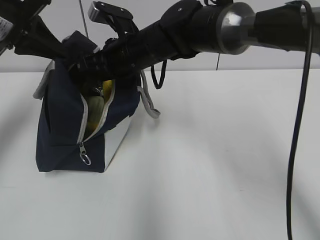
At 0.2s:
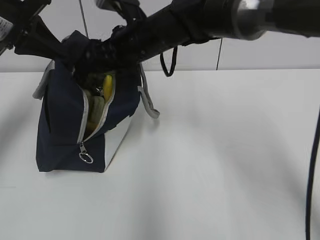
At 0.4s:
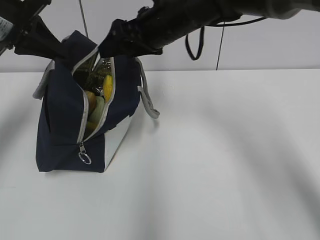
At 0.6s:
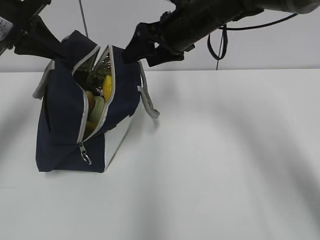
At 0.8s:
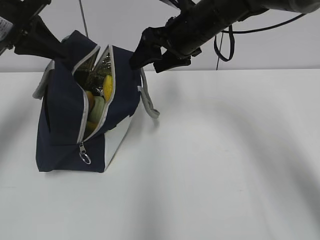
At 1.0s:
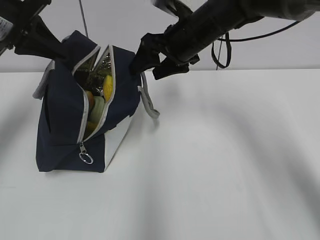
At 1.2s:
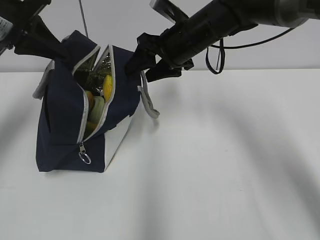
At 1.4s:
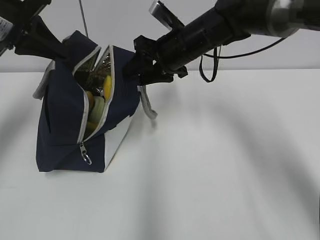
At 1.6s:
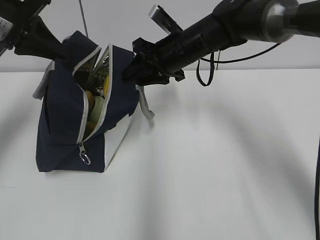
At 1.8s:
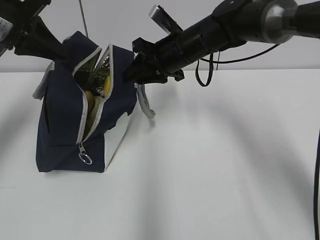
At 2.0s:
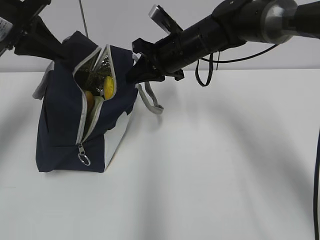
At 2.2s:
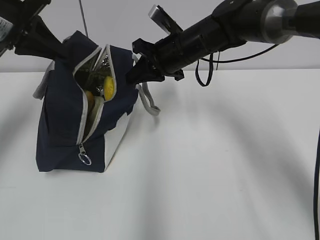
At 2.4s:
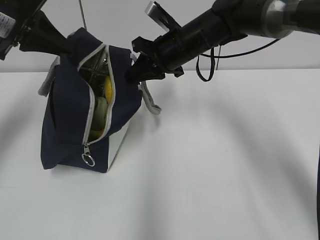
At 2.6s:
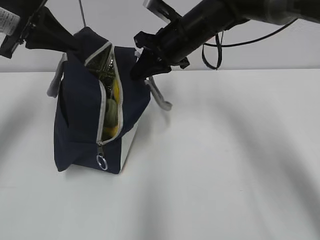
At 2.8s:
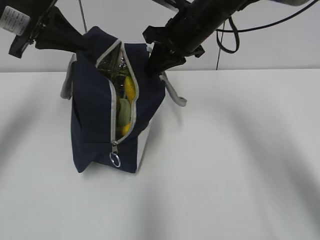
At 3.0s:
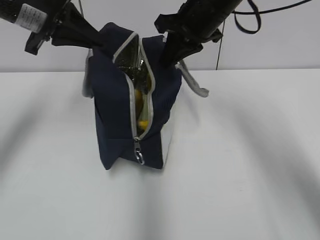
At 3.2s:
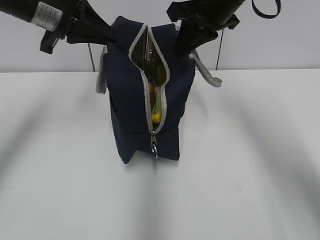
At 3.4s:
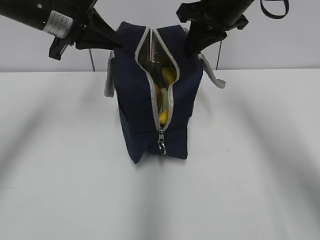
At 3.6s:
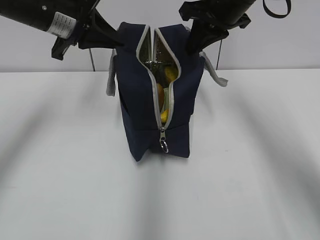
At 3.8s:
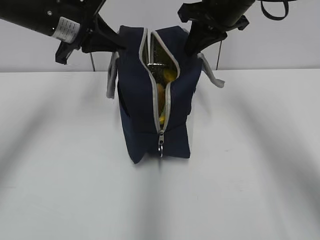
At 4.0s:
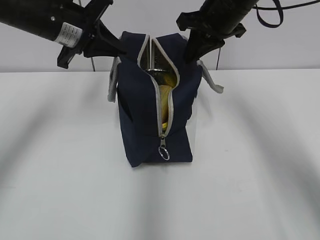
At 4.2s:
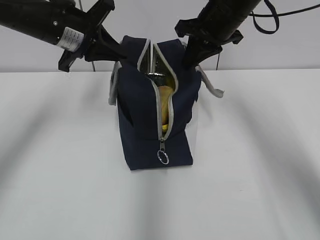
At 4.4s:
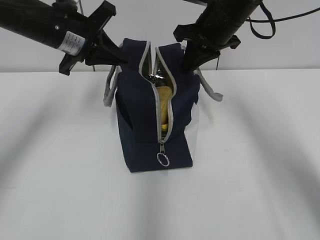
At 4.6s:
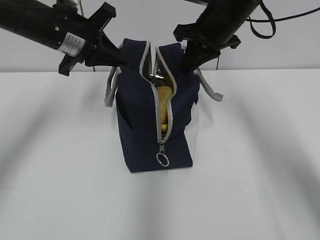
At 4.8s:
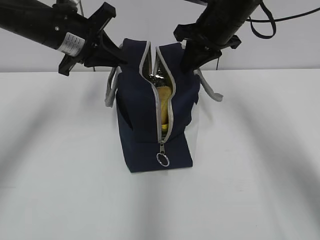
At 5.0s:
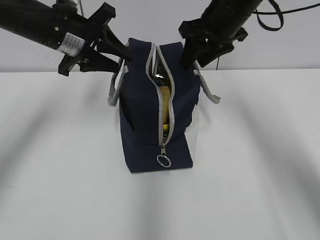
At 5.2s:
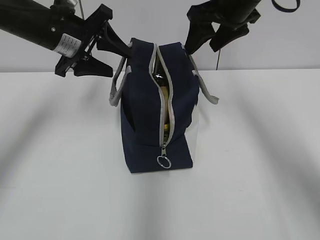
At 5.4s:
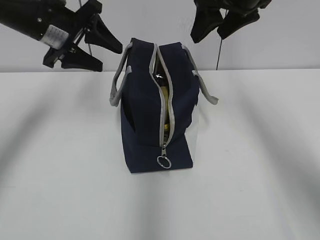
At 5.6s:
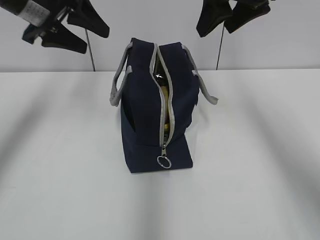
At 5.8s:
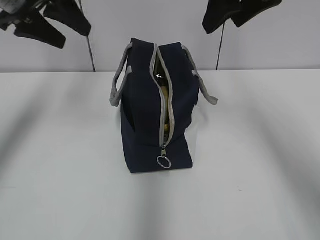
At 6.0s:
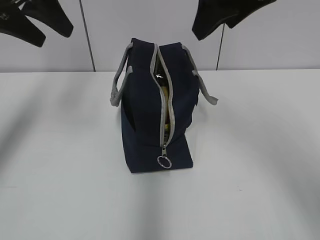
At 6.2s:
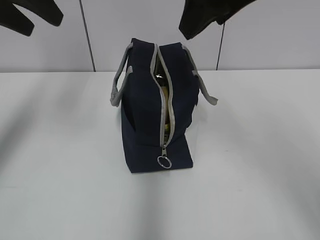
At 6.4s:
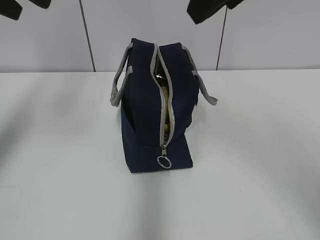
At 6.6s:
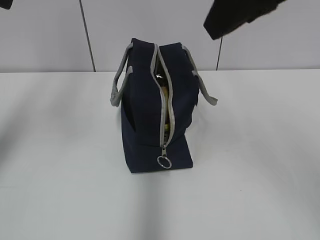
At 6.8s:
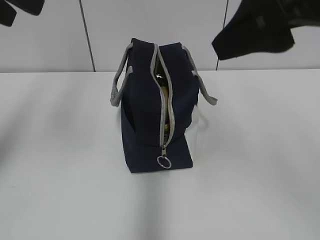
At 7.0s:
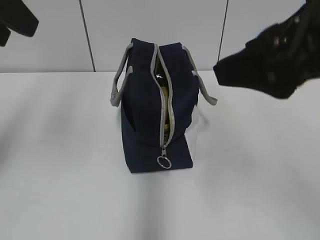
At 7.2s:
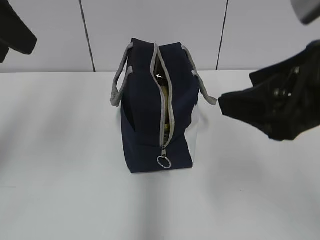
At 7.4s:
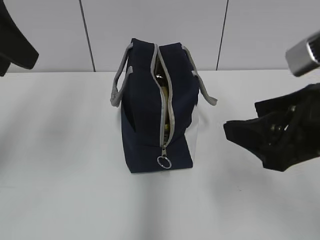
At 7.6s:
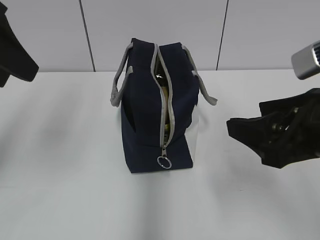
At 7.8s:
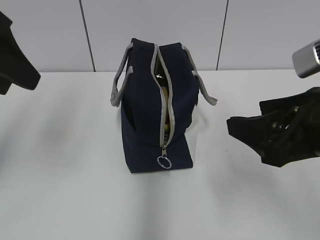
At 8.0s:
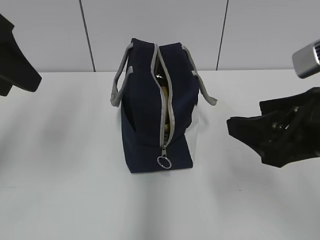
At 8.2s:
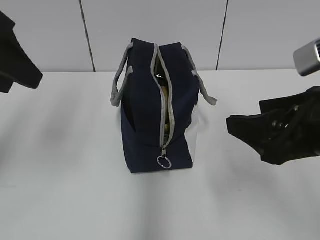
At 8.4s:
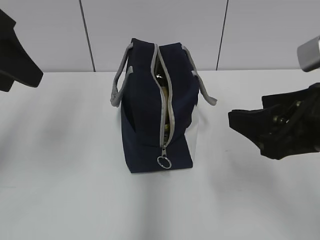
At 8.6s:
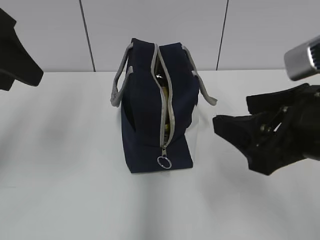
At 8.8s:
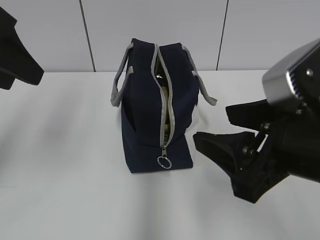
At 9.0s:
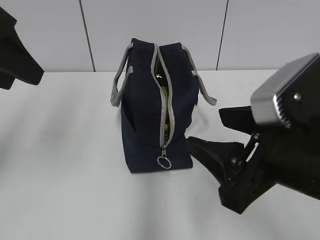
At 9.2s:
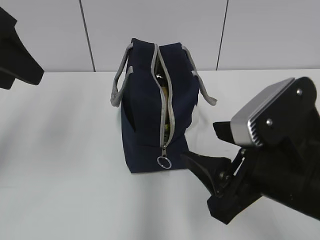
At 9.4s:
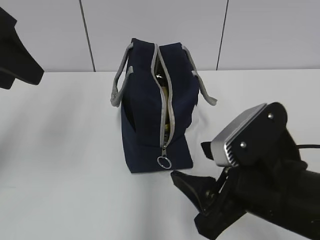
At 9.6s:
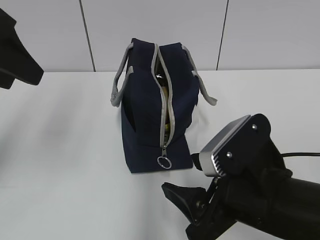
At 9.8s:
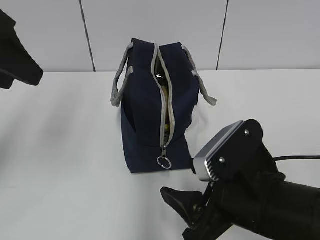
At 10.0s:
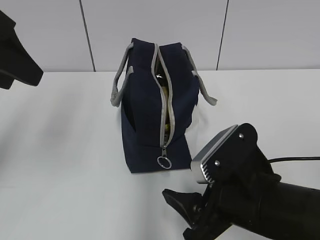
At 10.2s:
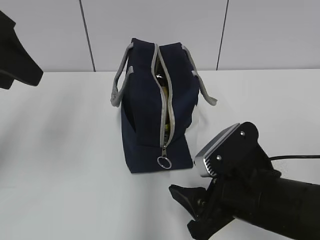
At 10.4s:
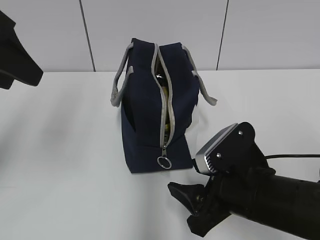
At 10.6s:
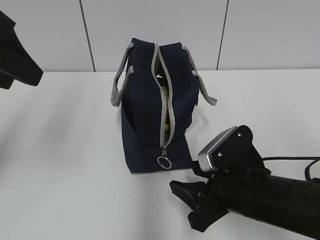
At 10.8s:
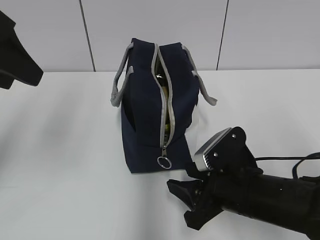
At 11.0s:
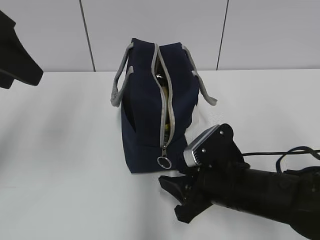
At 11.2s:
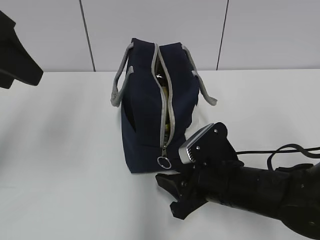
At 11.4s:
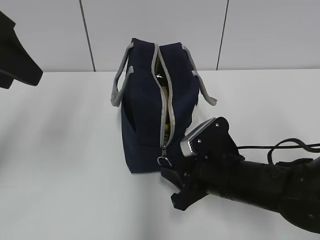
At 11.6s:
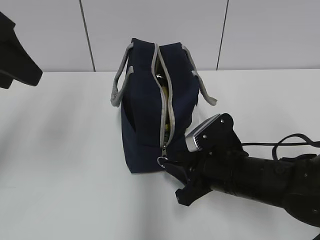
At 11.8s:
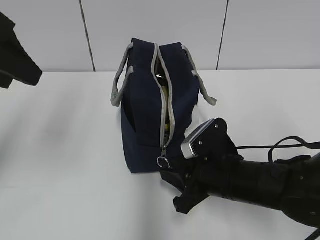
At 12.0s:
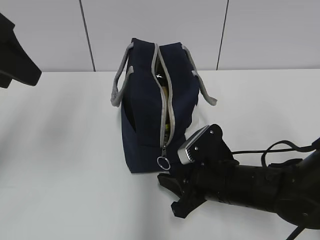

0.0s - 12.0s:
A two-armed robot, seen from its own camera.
0.0s - 1.6s: The right gripper travels to the right by about 10 cm, and closes.
1.6s - 3.0s: The right gripper moves upward, approximately 10 cm, and closes; the left gripper shifts roughly 5 cm to the right.
3.0s - 4.4s: The left gripper shifts roughly 5 cm downward.
4.4s - 6.0s: The right gripper shifts some 15 cm upward and backward, and opens; the left gripper shifts approximately 15 cm upward, to the left and backward, and opens up.
6.0s - 7.6s: The right gripper heads backward and downward, covering roughly 20 cm; the left gripper is displaced backward by roughly 10 cm.
7.6s - 9.0s: The right gripper shifts by roughly 5 cm.
9.0s - 10.4s: The right gripper travels downward by approximately 10 cm.
10.4s - 12.0s: The right gripper goes about 10 cm forward and downward, and closes its fingers.

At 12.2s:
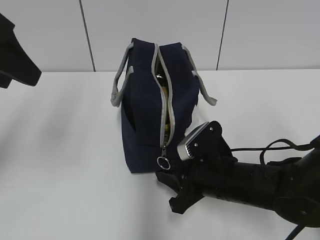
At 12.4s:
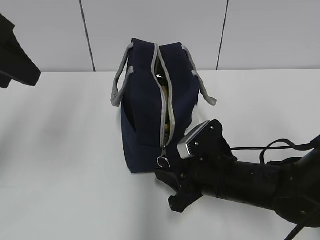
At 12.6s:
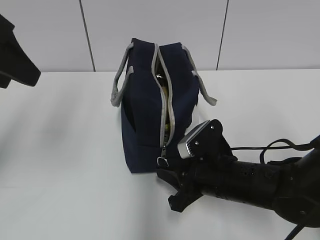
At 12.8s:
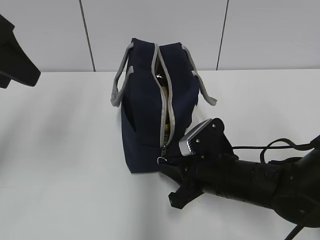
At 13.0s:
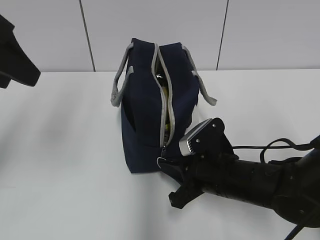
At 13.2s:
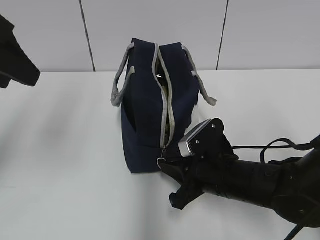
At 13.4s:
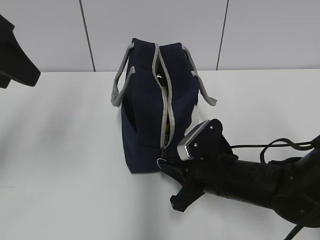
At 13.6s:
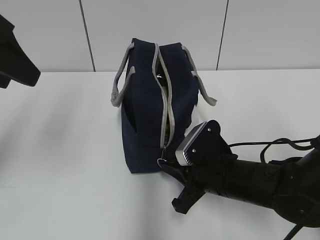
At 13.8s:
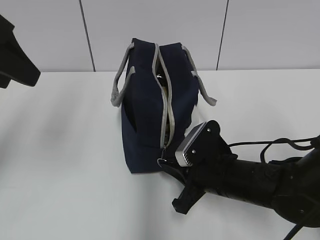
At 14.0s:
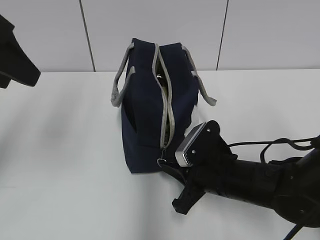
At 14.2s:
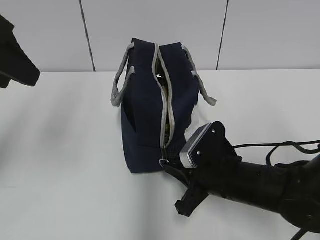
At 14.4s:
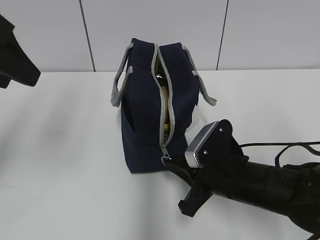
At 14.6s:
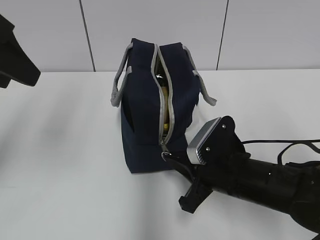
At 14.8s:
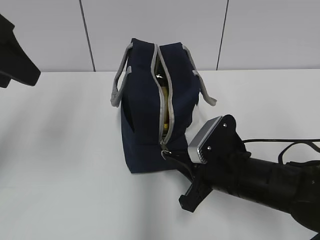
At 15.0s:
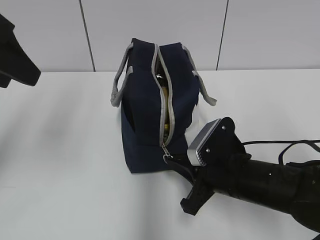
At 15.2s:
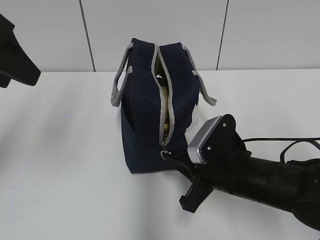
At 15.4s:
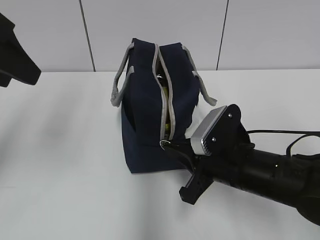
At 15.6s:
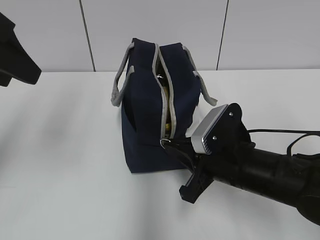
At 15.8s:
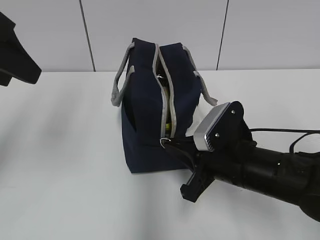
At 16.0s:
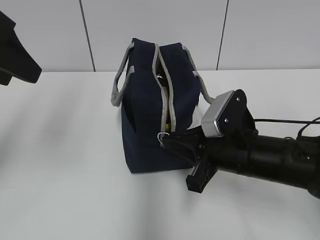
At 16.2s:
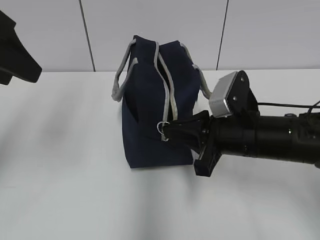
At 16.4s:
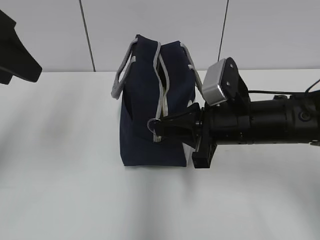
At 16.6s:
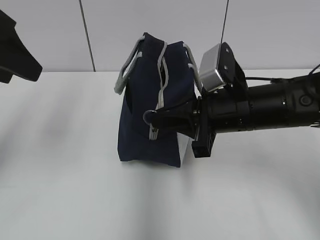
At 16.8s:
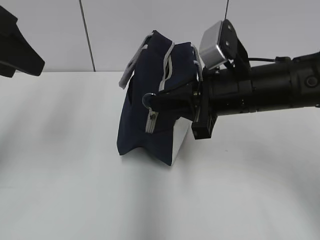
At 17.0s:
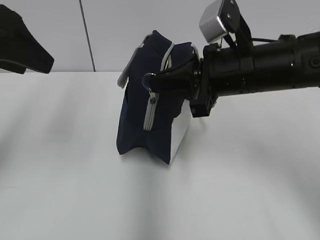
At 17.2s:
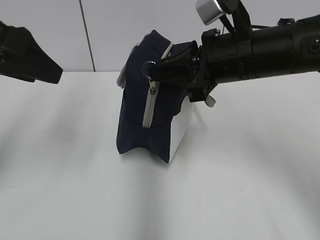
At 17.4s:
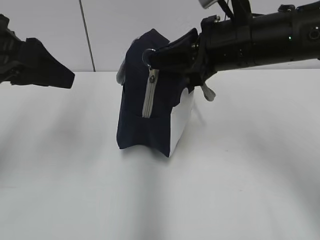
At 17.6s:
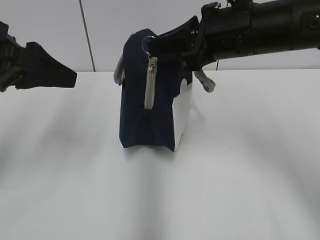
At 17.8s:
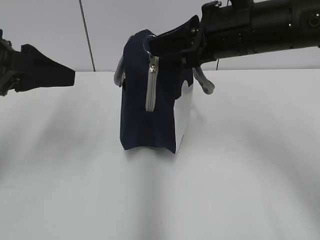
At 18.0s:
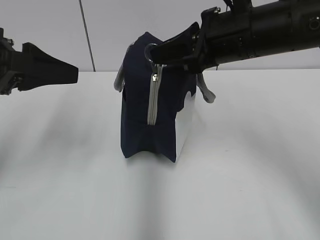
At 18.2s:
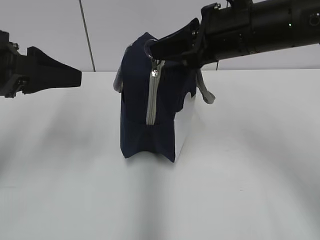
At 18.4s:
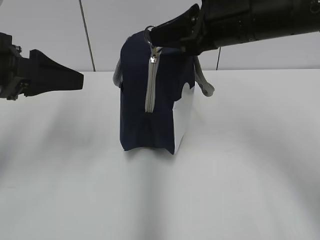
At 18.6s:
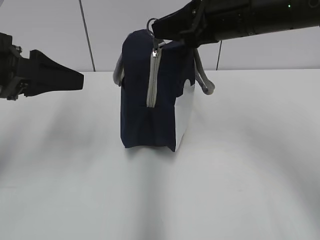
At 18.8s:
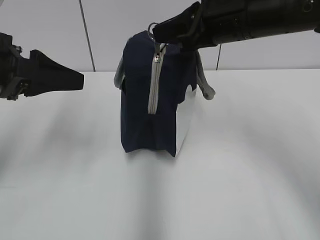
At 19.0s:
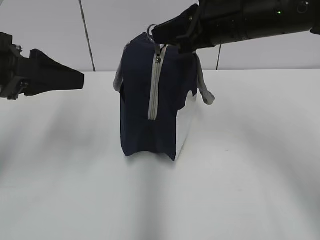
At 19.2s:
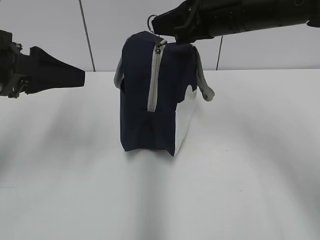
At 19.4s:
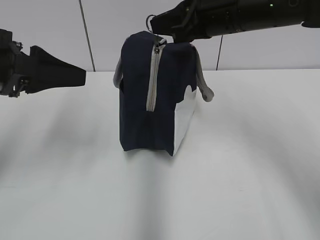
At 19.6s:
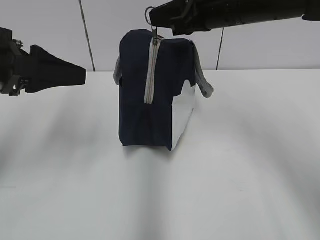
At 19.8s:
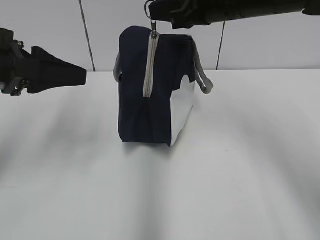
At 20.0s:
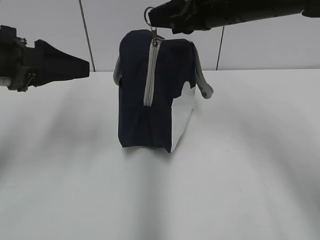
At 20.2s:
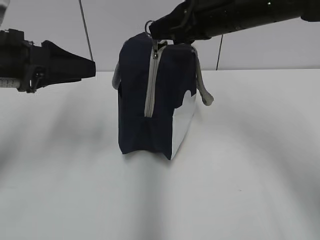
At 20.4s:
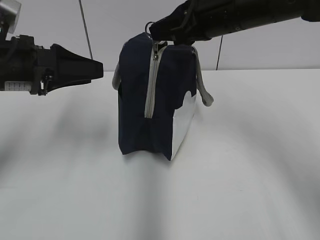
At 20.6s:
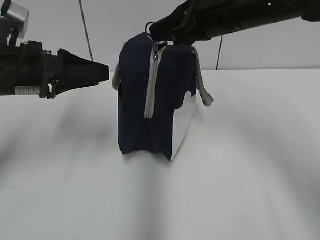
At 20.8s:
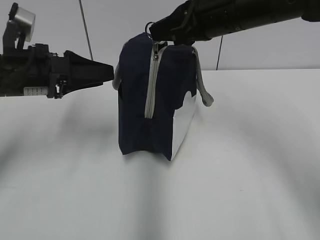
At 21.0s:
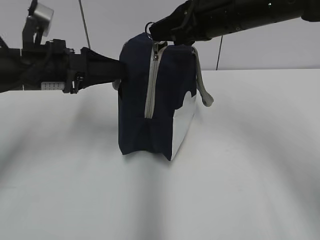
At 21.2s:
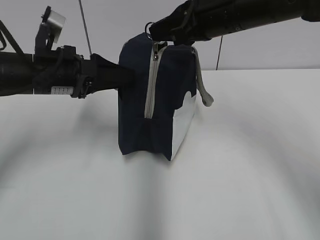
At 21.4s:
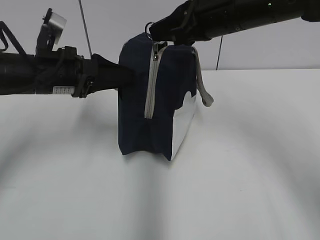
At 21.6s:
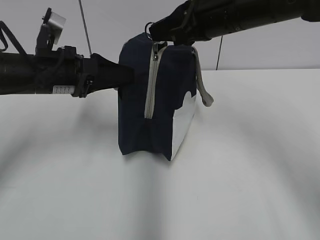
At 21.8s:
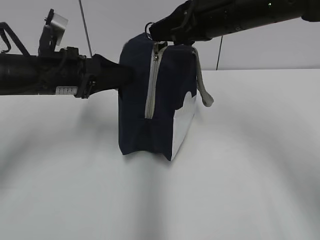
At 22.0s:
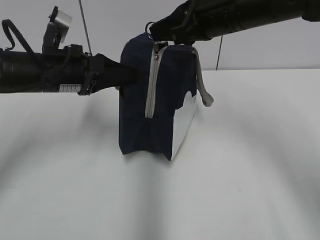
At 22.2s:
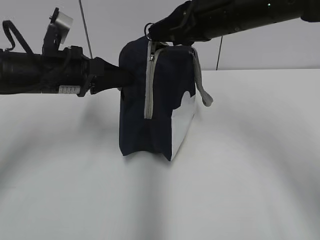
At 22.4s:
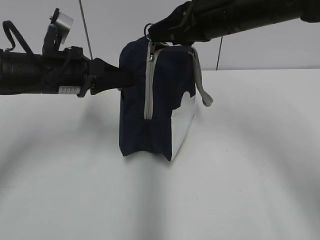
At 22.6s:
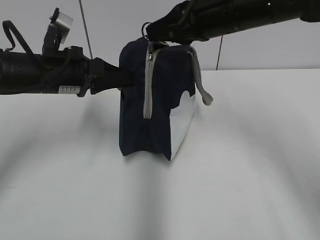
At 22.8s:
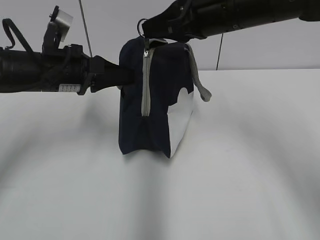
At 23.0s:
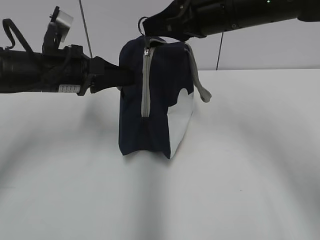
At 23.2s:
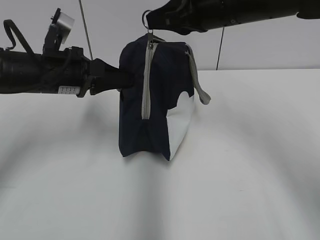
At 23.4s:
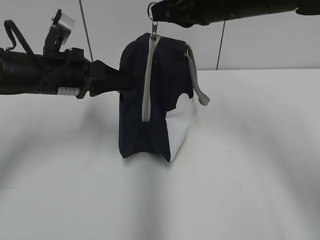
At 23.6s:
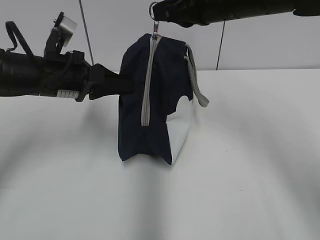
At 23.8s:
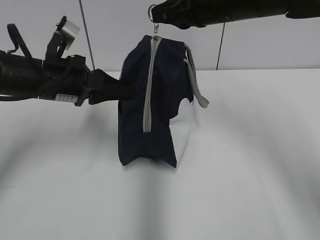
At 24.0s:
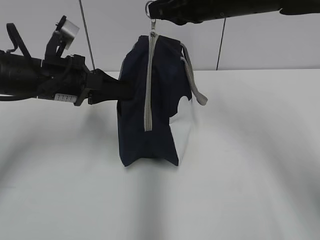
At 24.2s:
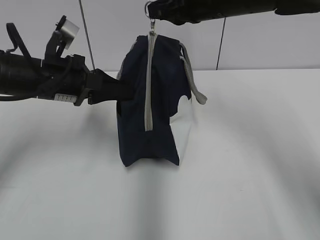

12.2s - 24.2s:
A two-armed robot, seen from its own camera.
12.2s - 13.8s: The right gripper closes its fingers.
13.8s - 15.2s: The grippers move only a little.
15.2s - 16.6s: The right gripper shifts approximately 10 cm upward.
16.6s - 18.2s: The right gripper goes roughly 10 cm upward; the left gripper is displaced downward by about 5 cm.
18.2s - 19.8s: The right gripper ends up approximately 5 cm from where it was.
19.8s - 21.2s: The left gripper moves forward and downward, about 10 cm.
21.2s - 22.6s: The left gripper closes up.
22.6s - 24.2s: The grippers make only small movements.
